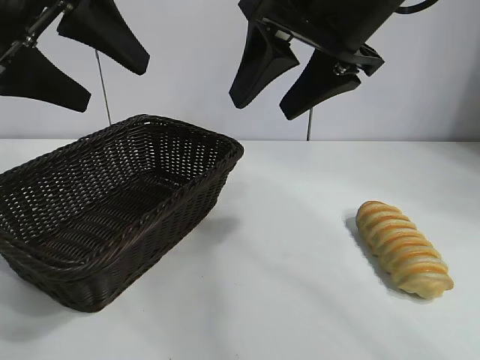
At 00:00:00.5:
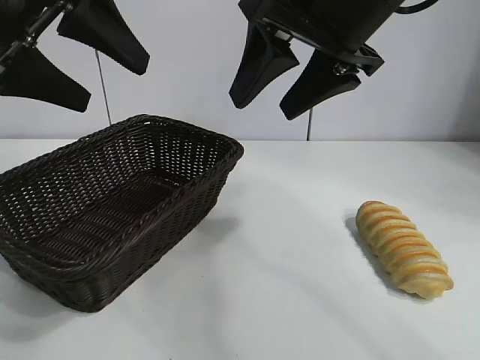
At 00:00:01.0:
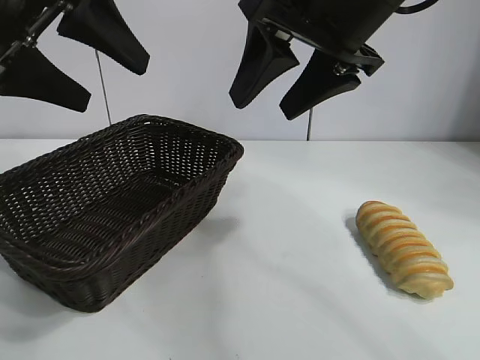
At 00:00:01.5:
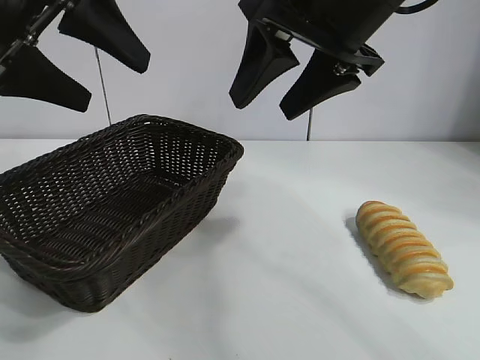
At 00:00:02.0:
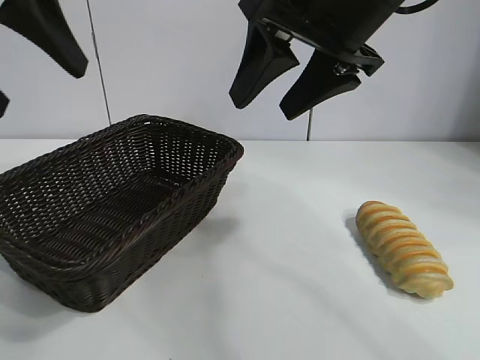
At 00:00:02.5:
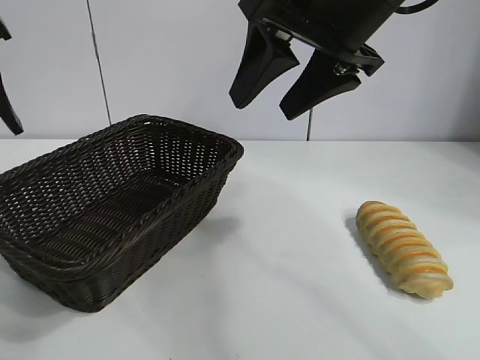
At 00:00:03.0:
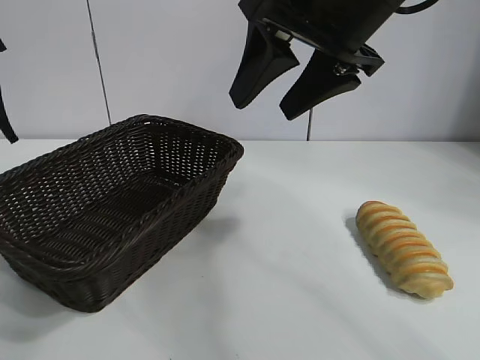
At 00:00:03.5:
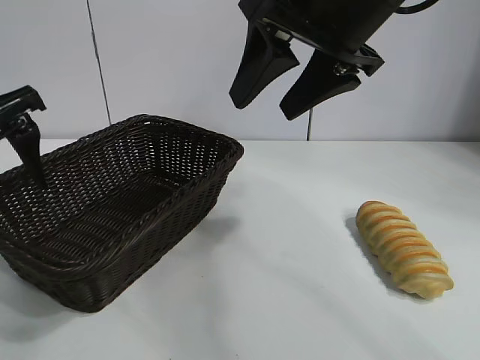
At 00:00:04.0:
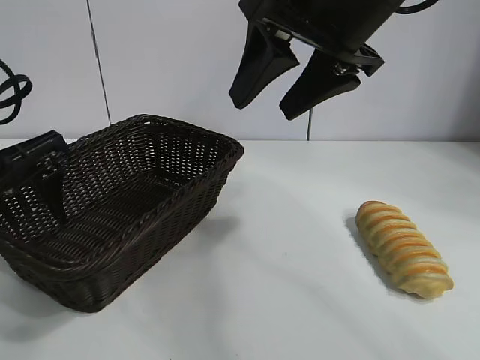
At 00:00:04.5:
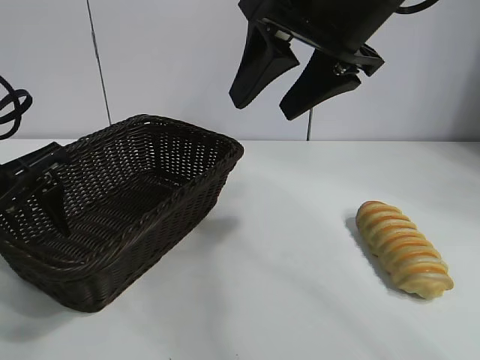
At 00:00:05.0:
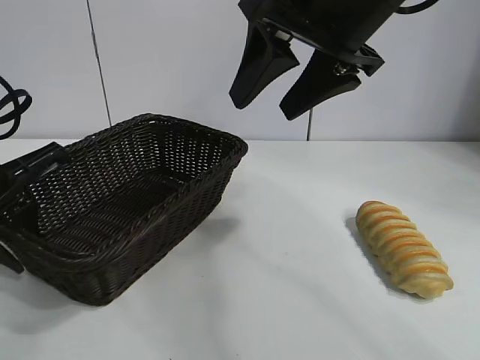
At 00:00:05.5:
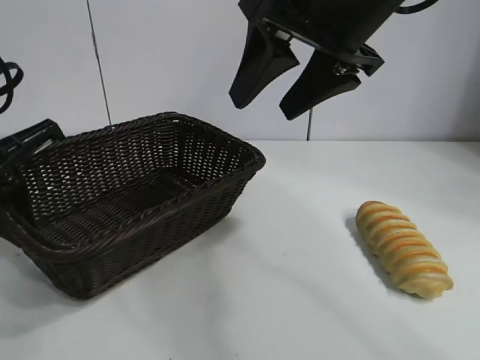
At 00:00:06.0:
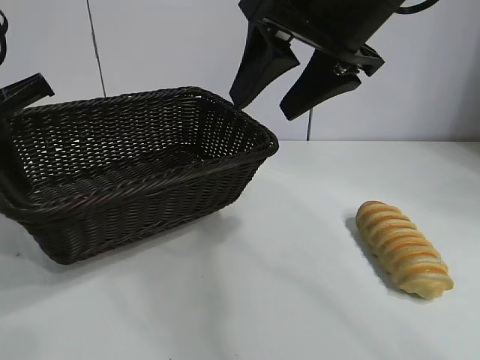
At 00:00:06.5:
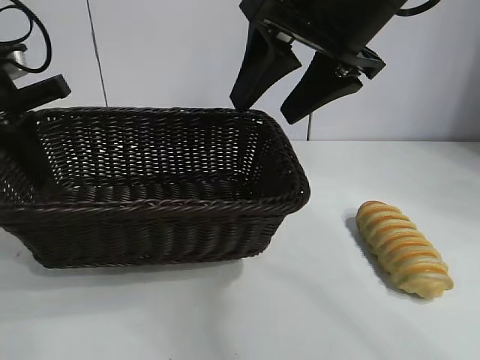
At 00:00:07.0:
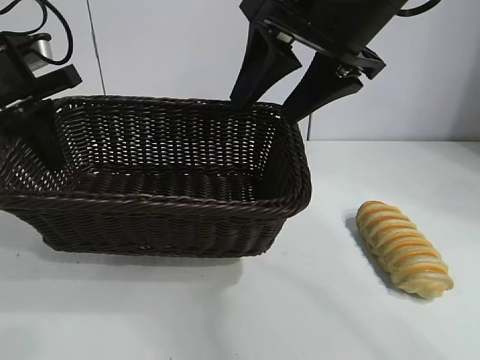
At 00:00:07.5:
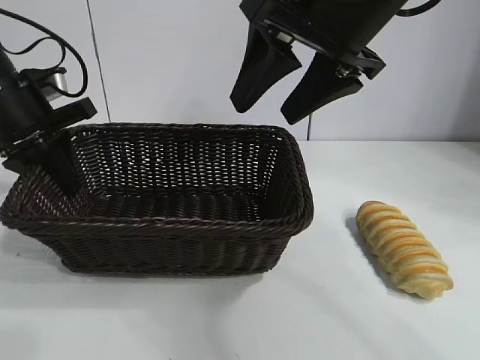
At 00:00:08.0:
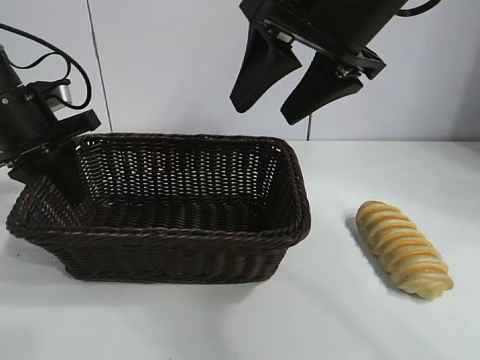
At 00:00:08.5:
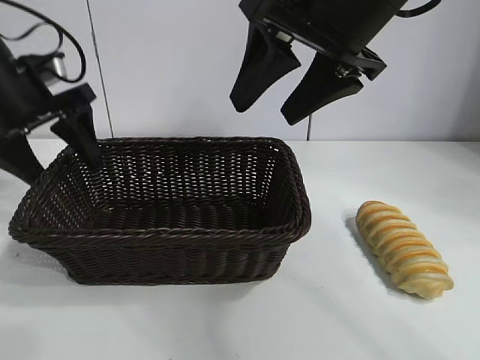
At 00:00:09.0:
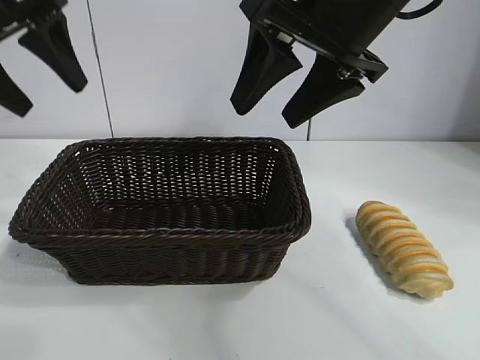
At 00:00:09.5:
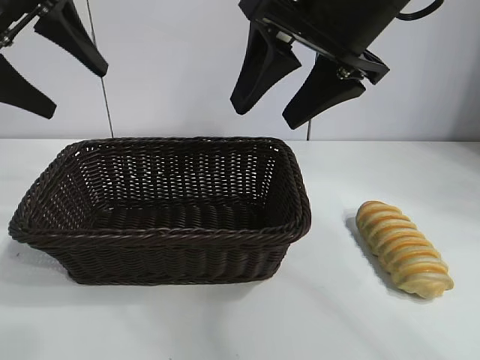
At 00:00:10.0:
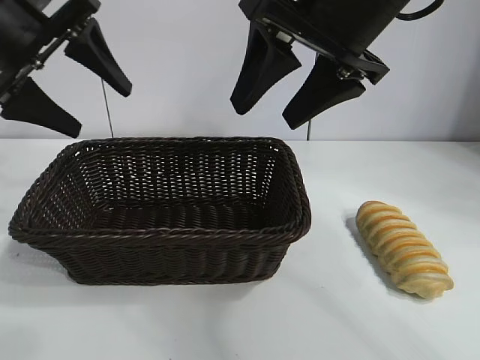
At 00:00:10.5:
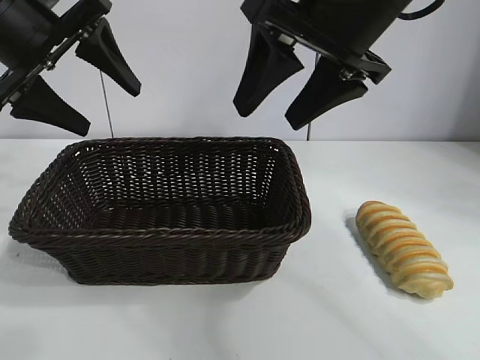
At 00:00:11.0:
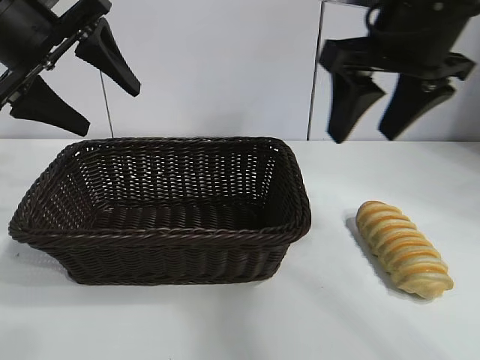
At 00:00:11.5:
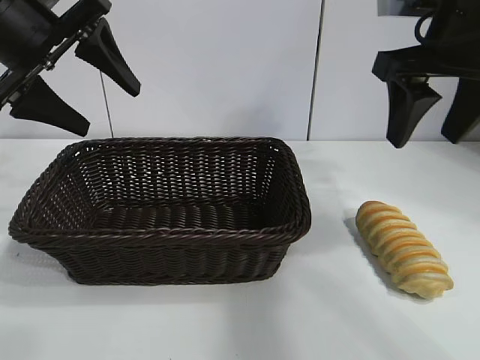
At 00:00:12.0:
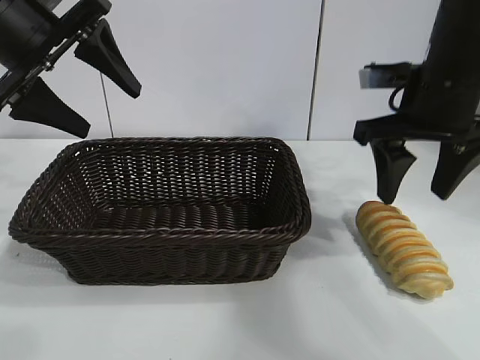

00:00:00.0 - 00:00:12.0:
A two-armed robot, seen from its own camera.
Task of the whole recording: pick up the long bread and put it into the basket.
Step, 00:00:02.0 - 00:00:05.0: Grasp the basket with the left gripper.
Step, 00:00:05.5 - 00:00:08.0: Place the basket in the center of the table with the left gripper.

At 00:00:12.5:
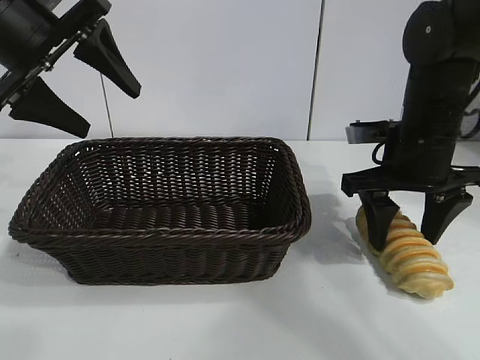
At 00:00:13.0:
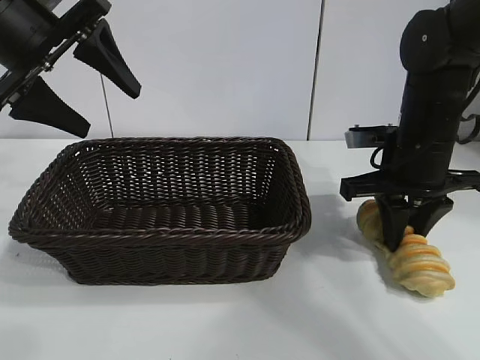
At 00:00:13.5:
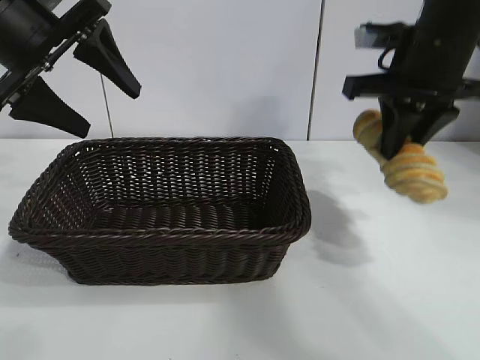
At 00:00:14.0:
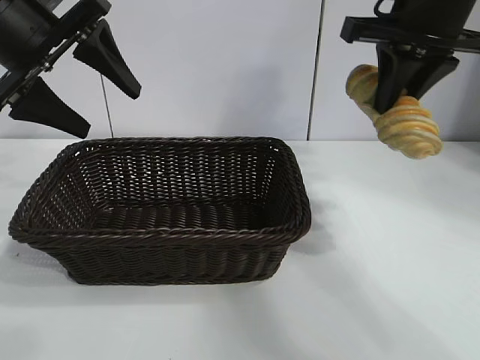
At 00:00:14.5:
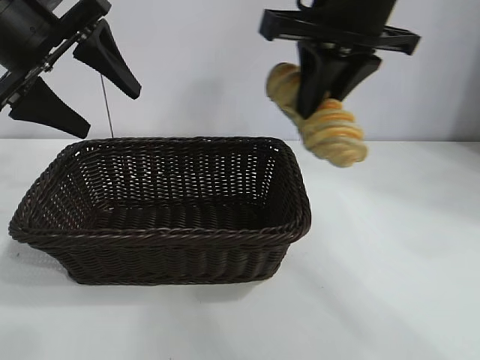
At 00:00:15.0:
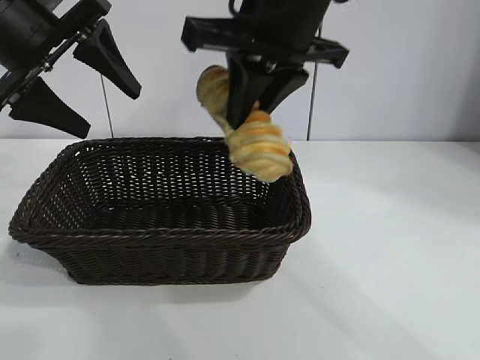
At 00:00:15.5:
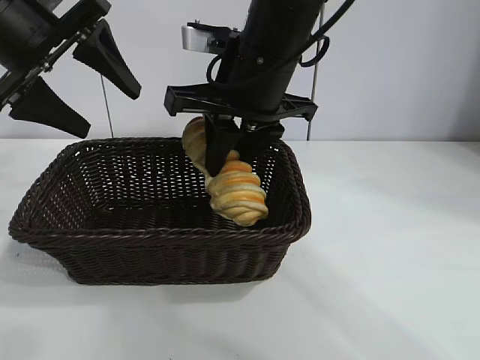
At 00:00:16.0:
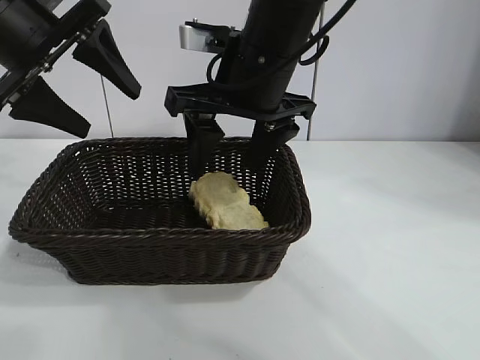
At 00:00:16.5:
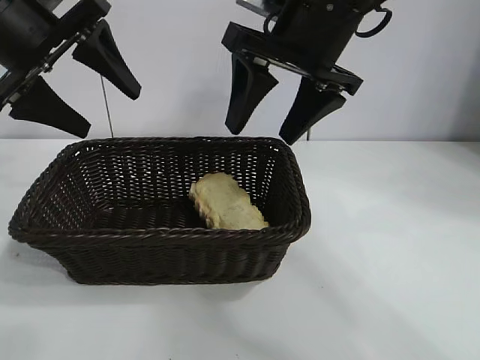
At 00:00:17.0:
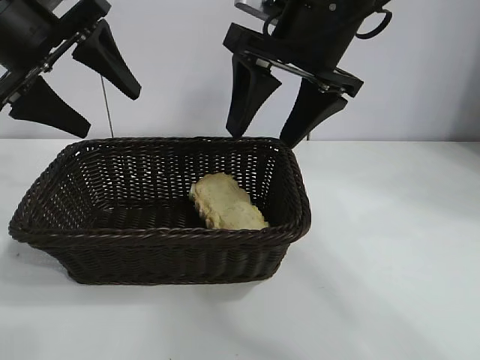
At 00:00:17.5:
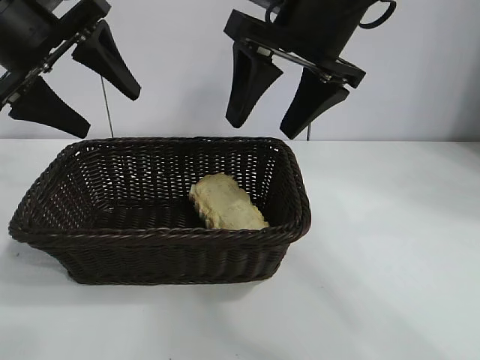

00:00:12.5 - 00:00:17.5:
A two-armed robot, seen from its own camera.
Task of the whole recording: pick up the long bread and put it into the basket.
Step, 00:00:13.5 - 00:00:16.0: Place the long bread in the basket with right gripper.
